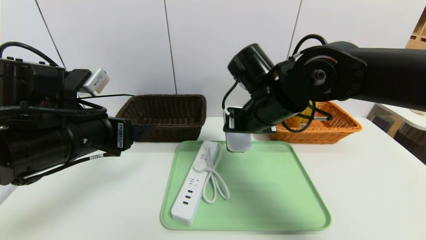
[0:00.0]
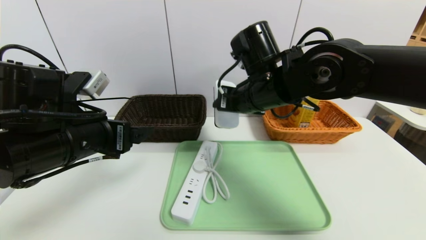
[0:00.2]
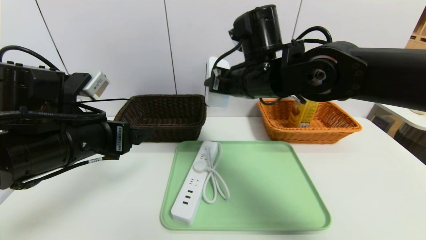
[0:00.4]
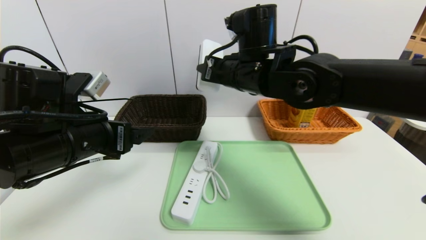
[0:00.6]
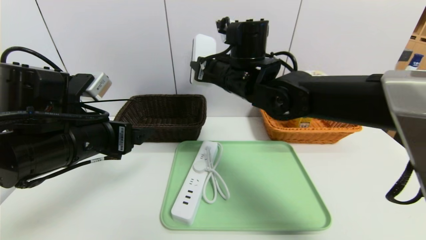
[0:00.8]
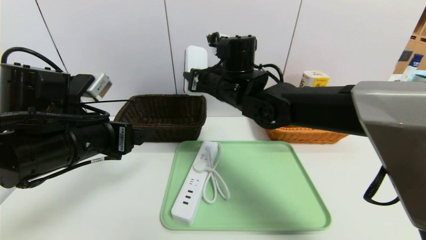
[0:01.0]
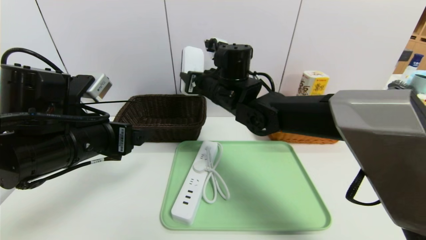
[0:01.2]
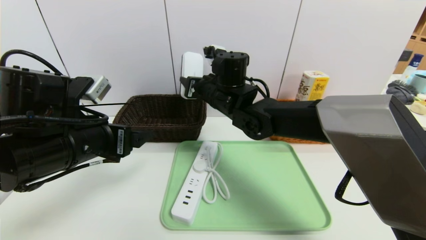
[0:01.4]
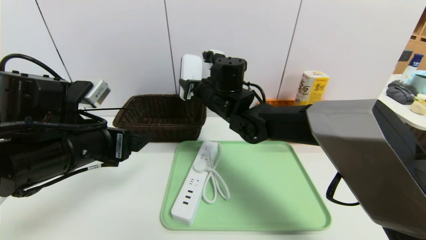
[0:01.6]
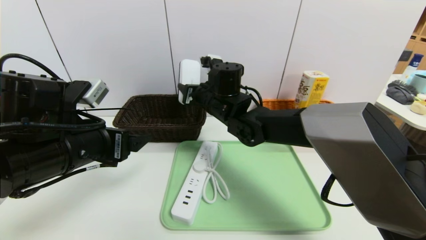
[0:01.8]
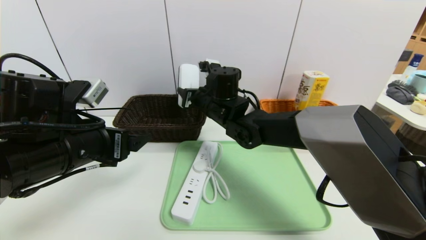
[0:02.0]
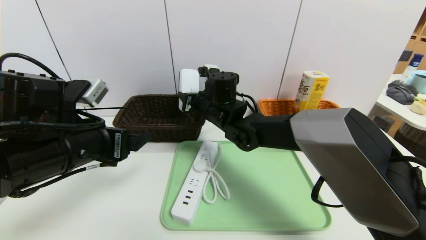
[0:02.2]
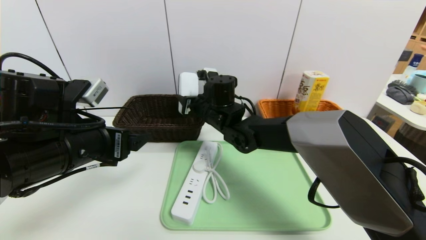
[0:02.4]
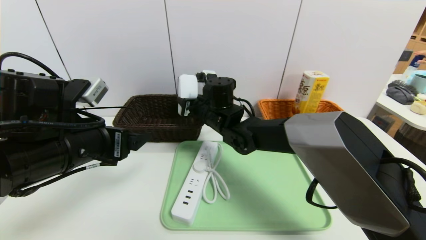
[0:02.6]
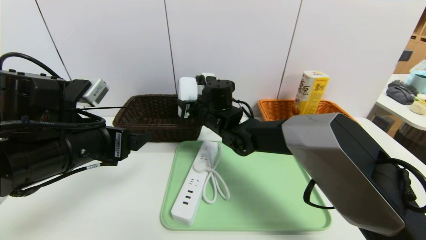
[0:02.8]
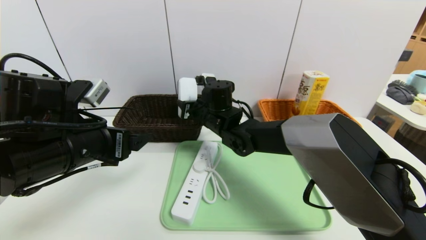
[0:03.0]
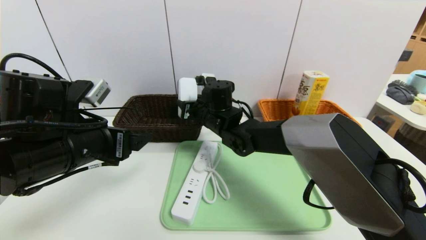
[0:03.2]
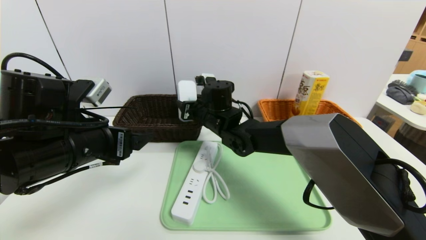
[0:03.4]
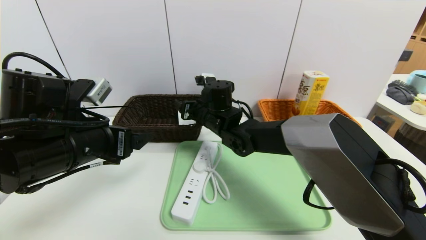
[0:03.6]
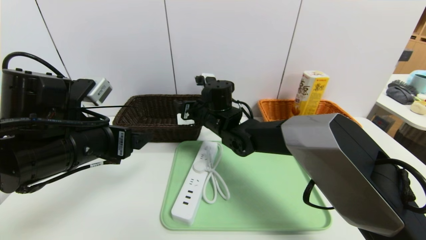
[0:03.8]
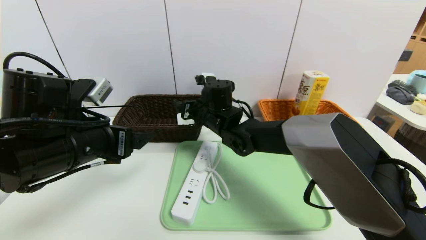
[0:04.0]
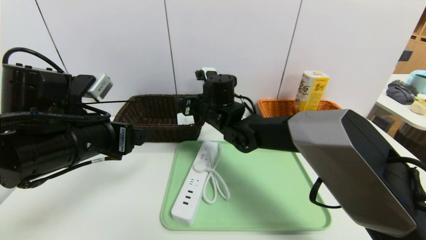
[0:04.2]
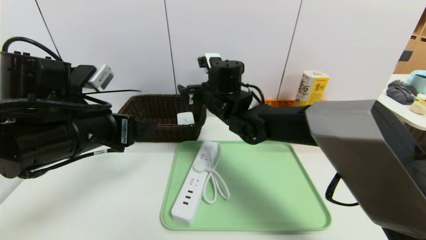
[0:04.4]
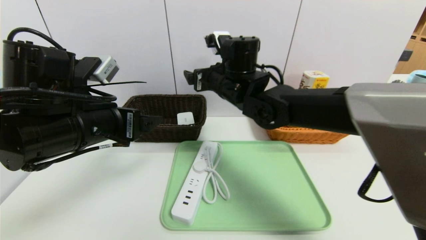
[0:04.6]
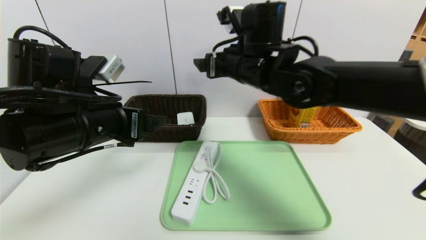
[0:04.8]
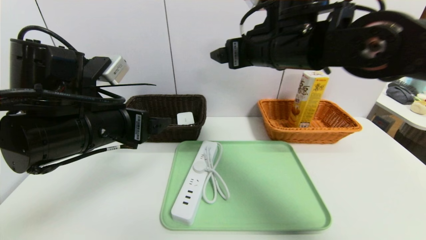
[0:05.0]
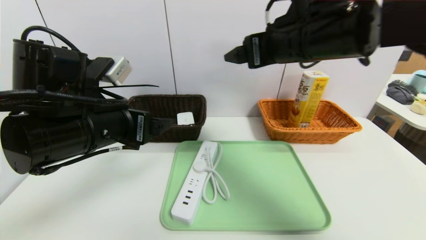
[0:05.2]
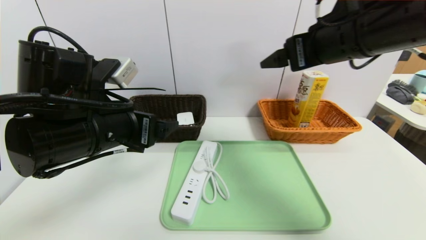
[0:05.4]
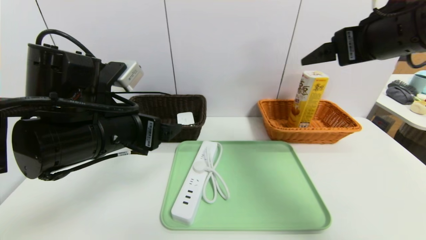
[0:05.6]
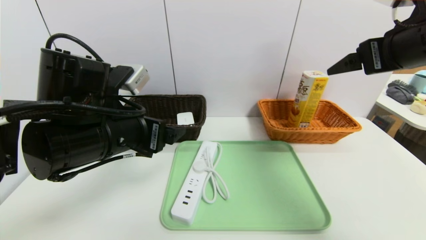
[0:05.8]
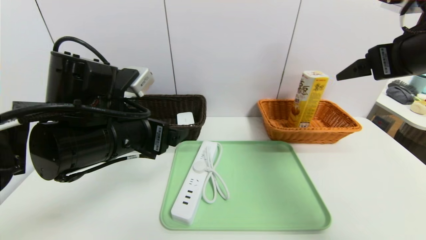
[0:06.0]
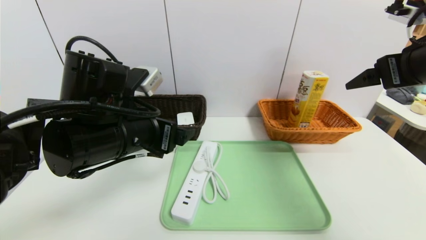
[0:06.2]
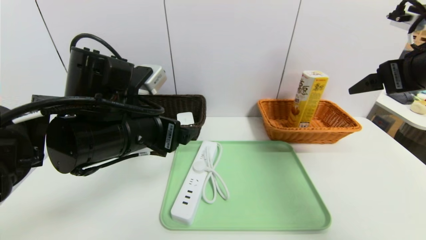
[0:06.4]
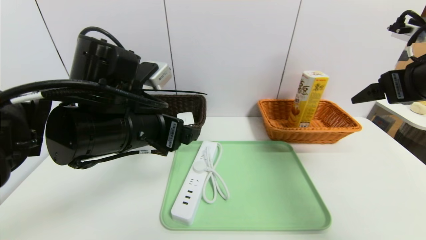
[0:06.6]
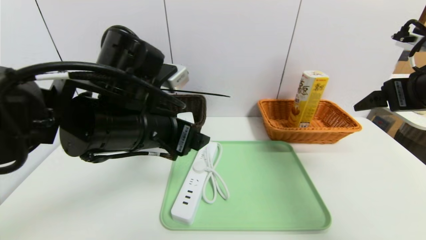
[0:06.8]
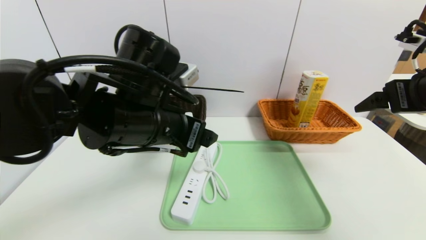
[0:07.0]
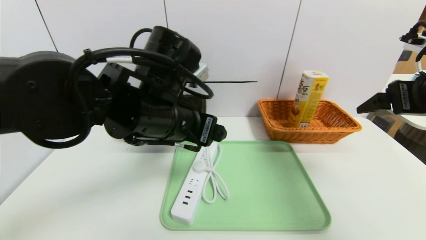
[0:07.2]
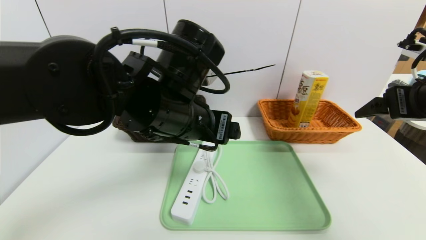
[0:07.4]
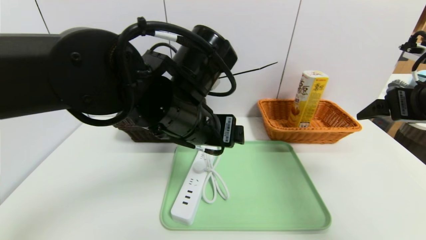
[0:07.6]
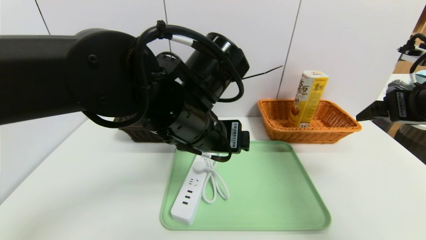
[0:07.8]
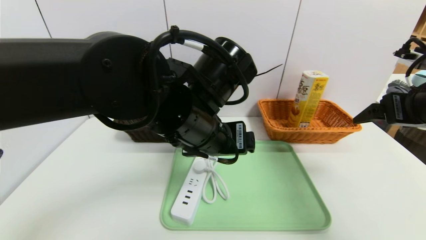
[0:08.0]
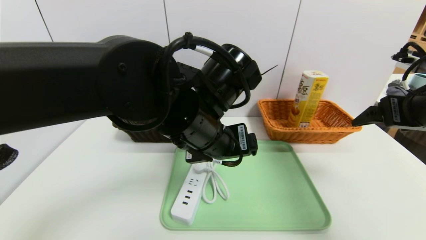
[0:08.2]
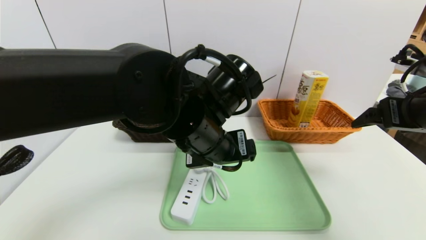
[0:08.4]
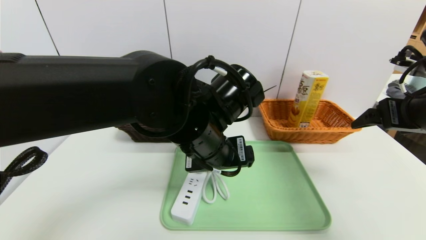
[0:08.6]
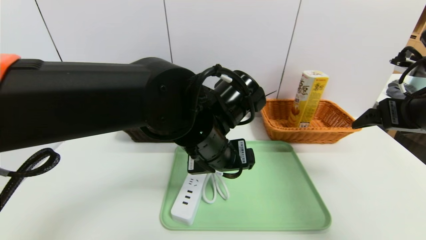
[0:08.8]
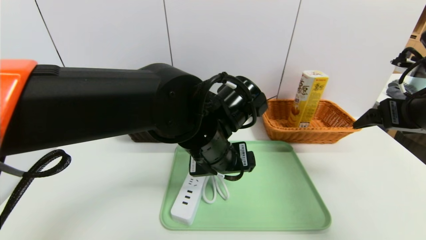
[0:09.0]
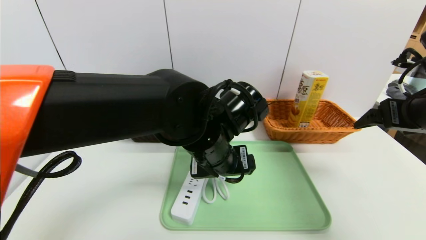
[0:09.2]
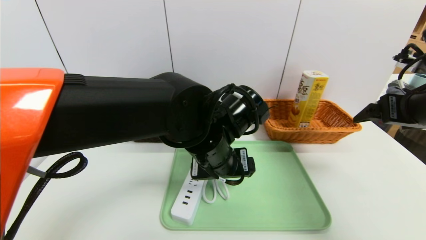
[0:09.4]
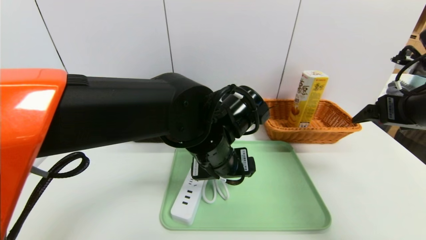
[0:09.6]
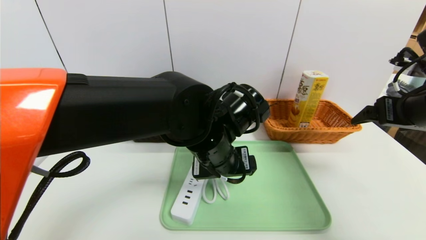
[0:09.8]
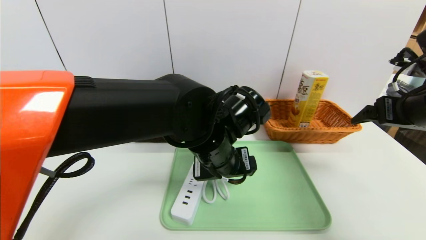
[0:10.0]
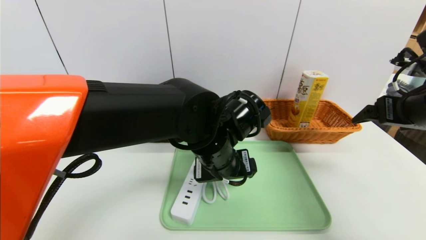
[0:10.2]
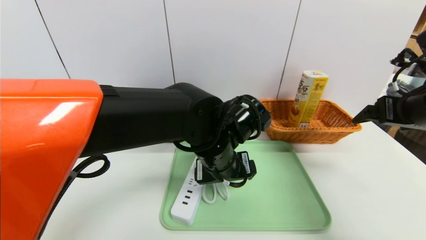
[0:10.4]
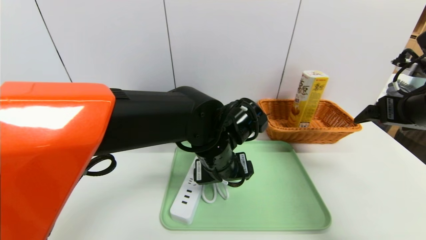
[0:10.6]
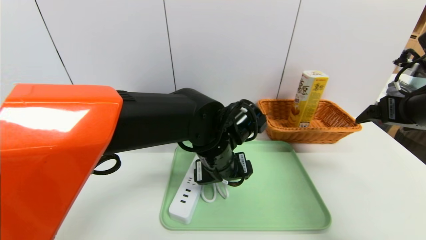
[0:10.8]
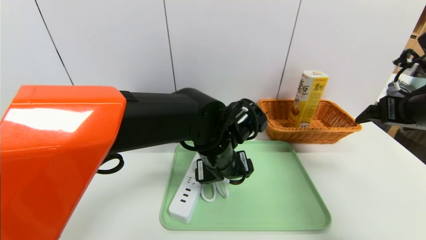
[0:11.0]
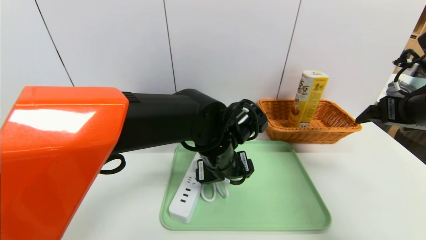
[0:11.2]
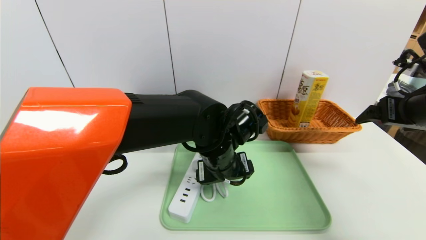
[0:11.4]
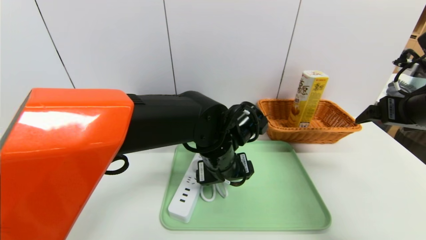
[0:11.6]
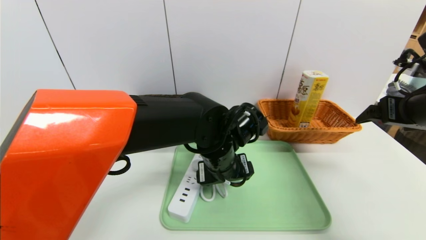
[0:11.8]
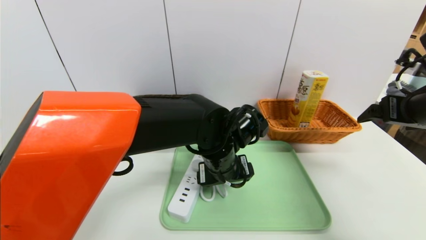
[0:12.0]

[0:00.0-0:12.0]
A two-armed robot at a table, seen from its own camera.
Task of the whole recording: place the food in the right basket with the right gripper, and place the non food items in the left basket with the left gripper.
0:00.0 to 0:01.6: The right gripper travels forward and to the left by approximately 10 cm.
0:01.6 to 0:03.0: The right gripper moves downward, roughly 5 cm.
0:03.0 to 0:04.4: The right gripper opens its fingers.
0:04.4 to 0:06.0: The right gripper travels to the right, upward and backward by some 35 cm; the left gripper goes approximately 5 cm to the right.
0:06.0 to 0:07.6: The right gripper travels downward by approximately 5 cm. Meanwhile the left gripper goes approximately 10 cm to the right.
0:07.6 to 0:09.0: The left gripper goes some 5 cm downward.
0:10.4 to 0:12.0: The grippers make only small movements.

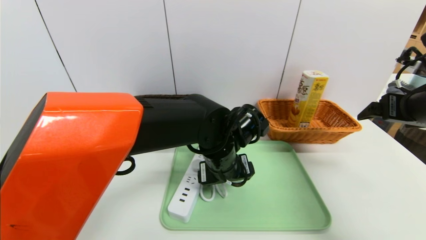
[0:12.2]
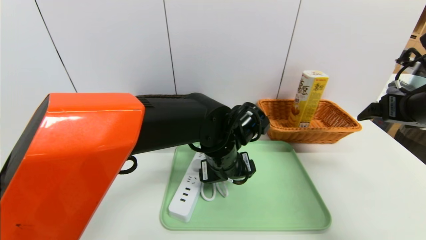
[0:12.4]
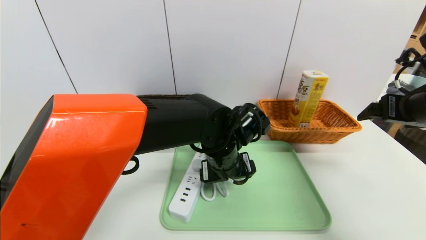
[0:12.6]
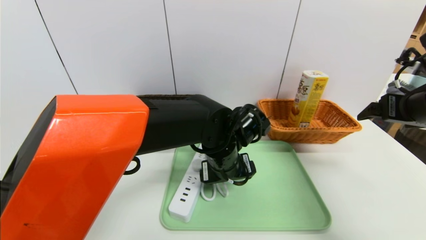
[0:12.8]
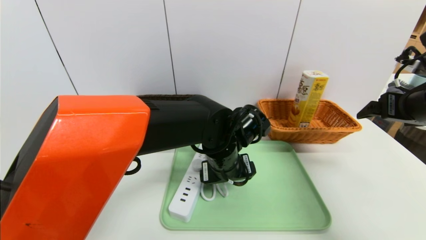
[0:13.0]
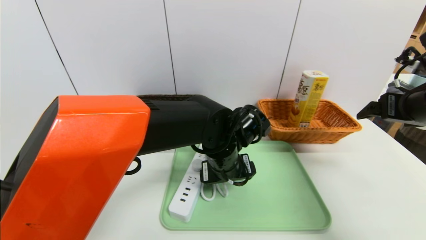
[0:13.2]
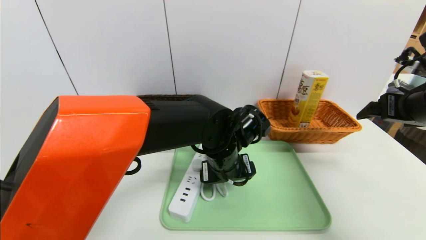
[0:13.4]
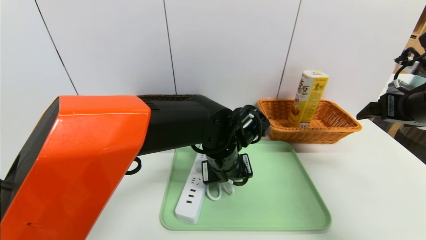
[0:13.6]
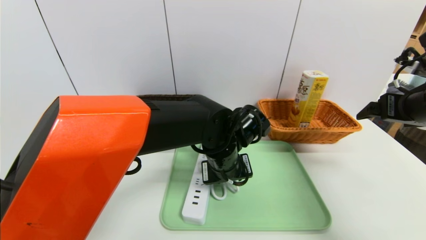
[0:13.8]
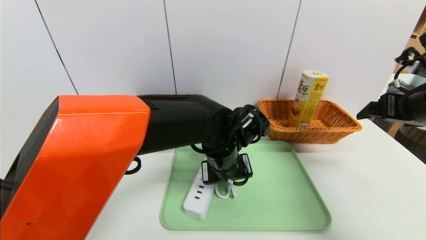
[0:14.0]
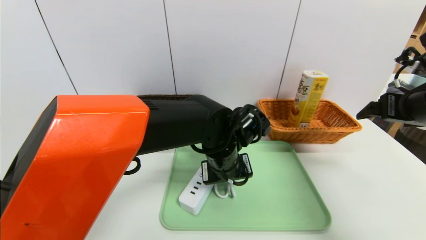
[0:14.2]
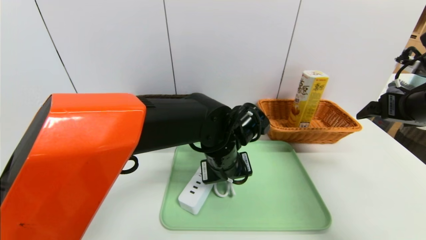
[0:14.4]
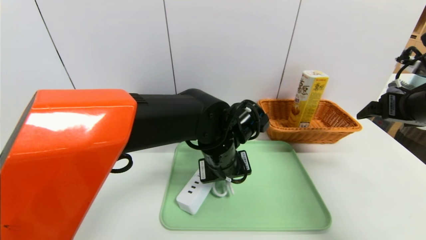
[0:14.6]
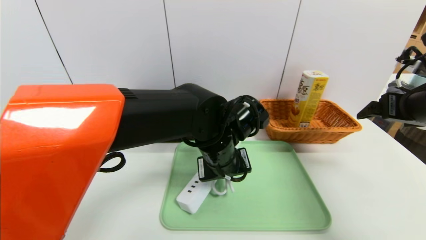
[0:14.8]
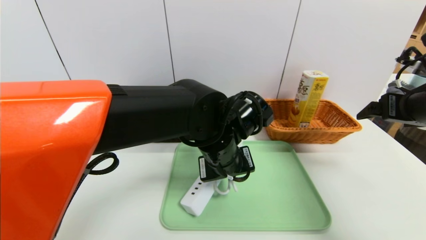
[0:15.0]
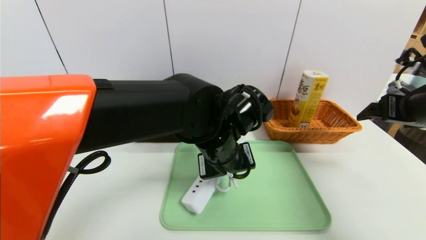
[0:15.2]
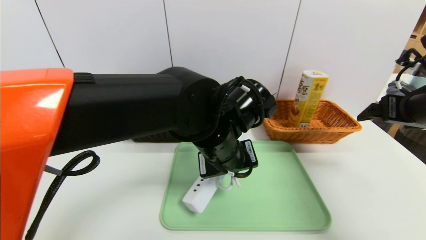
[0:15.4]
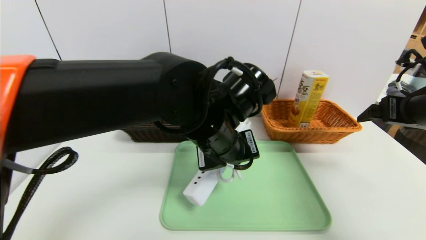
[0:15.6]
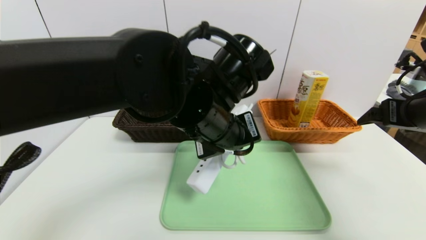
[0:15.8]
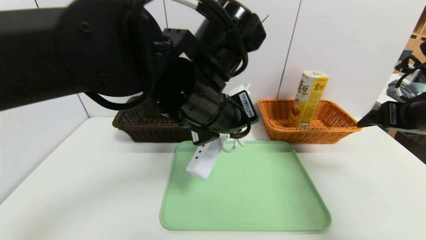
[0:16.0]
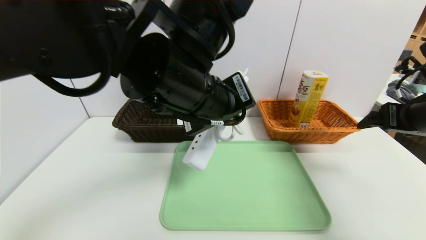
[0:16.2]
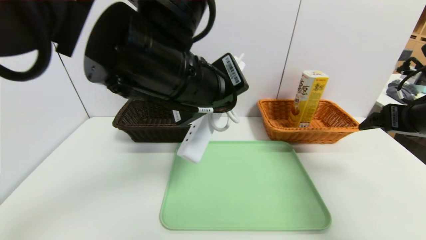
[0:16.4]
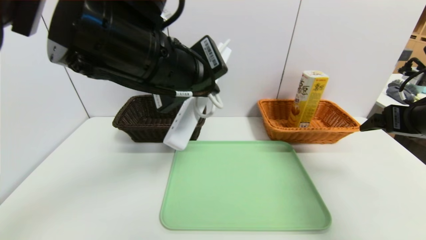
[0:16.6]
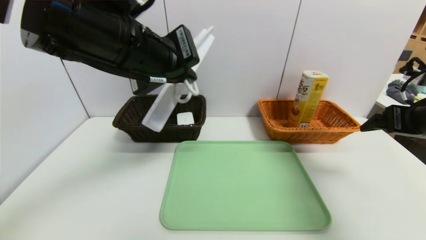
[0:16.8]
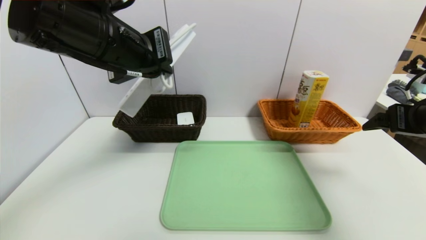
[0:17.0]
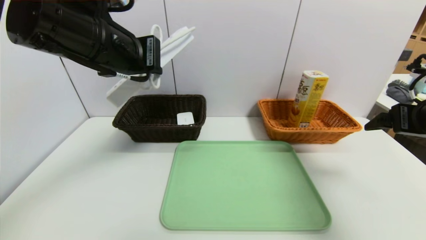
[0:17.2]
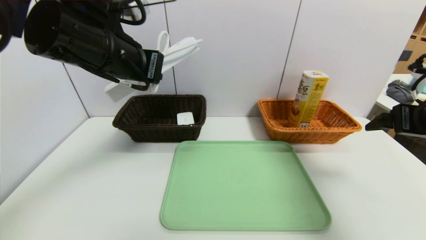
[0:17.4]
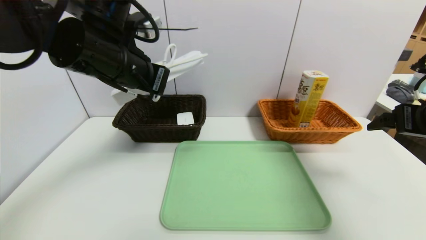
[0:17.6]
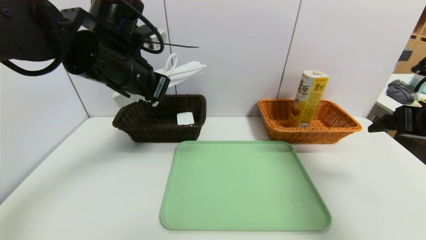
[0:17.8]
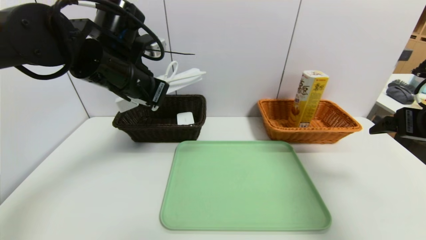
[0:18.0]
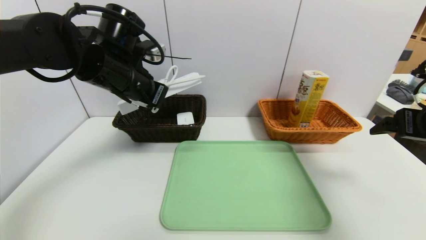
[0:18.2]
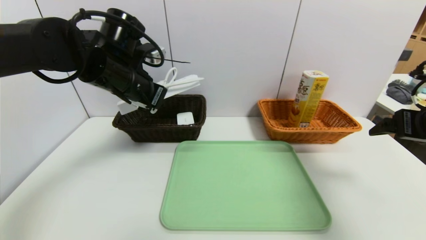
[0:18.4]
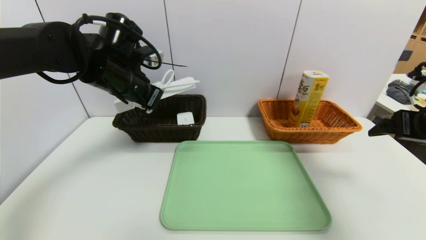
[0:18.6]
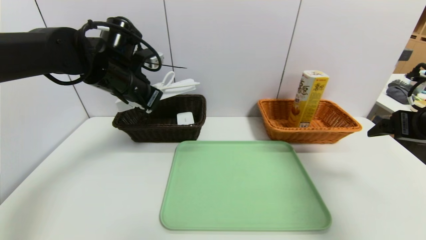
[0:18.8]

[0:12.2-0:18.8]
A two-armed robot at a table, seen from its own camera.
Task of the whole recording: place the food in the right basket with the right gripper, and place the non food items in the left basket with the left gripper.
0:12.2 to 0:13.8: The left gripper closes.
0:13.8 to 0:15.4: The left gripper is displaced upward by some 5 cm, and closes up.
0:15.4 to 0:17.2: The left gripper shifts approximately 20 cm to the left and upward.
0:17.2 to 0:18.8: The left gripper moves forward and downward, about 15 cm.
